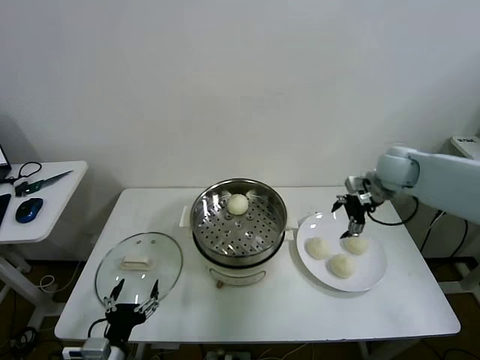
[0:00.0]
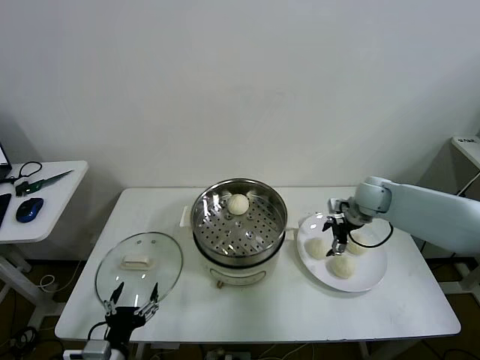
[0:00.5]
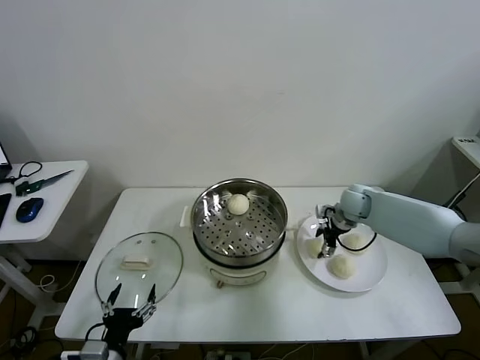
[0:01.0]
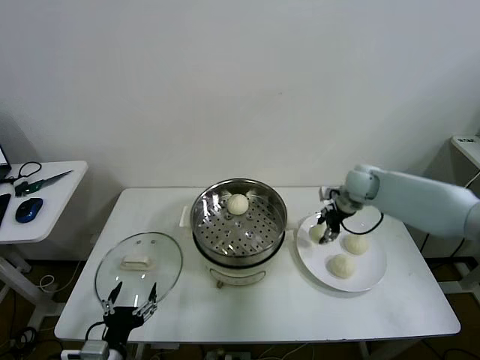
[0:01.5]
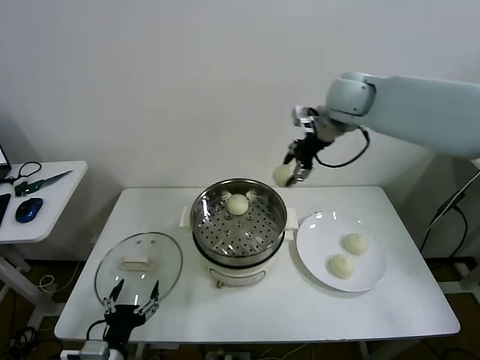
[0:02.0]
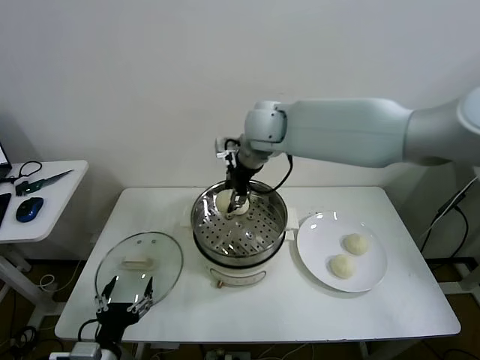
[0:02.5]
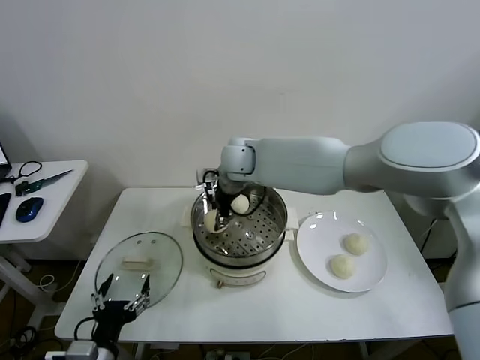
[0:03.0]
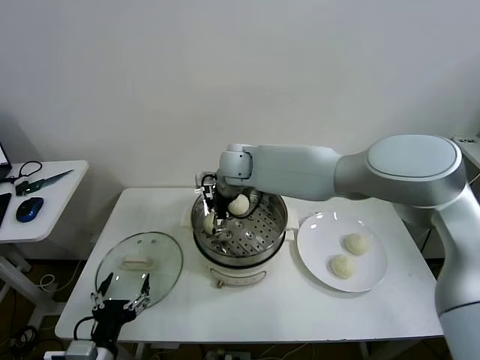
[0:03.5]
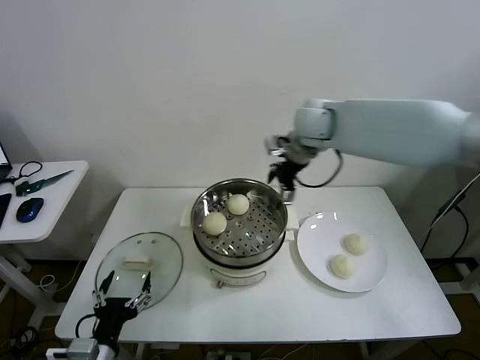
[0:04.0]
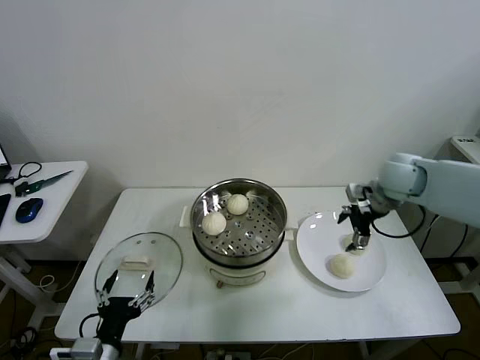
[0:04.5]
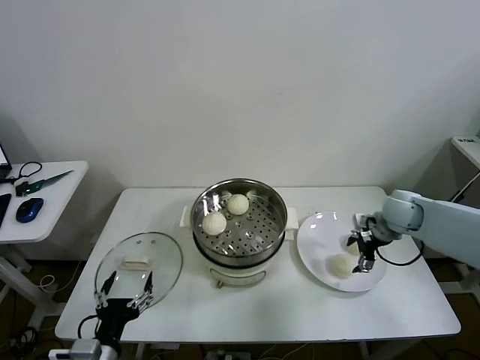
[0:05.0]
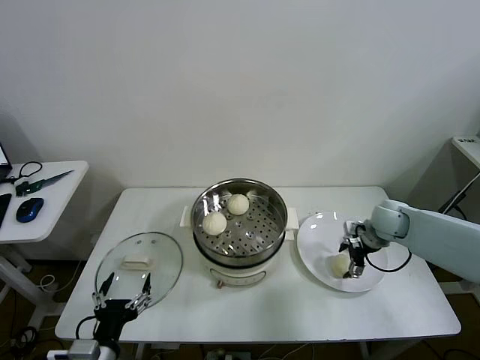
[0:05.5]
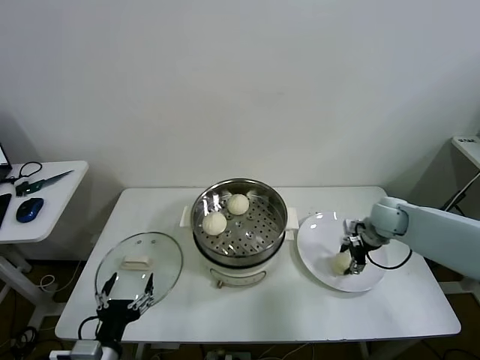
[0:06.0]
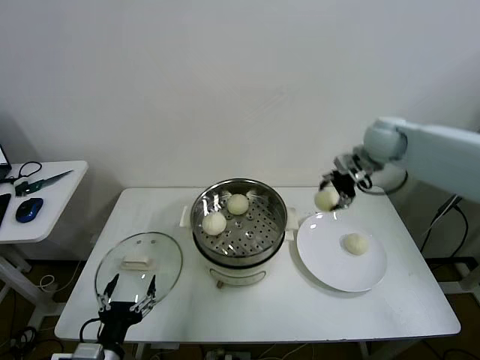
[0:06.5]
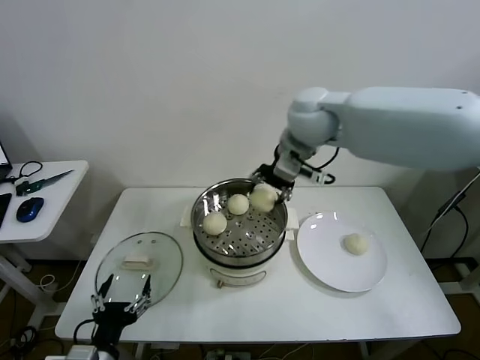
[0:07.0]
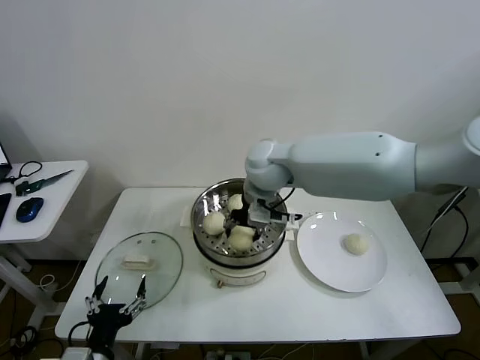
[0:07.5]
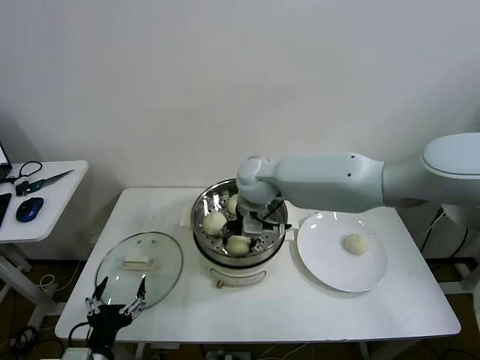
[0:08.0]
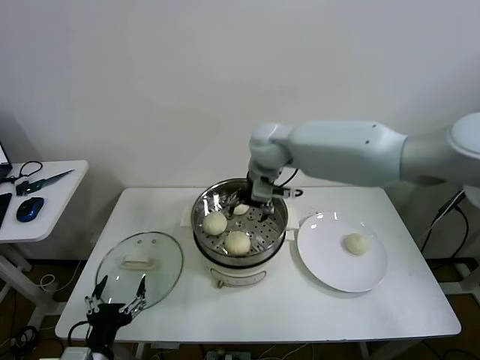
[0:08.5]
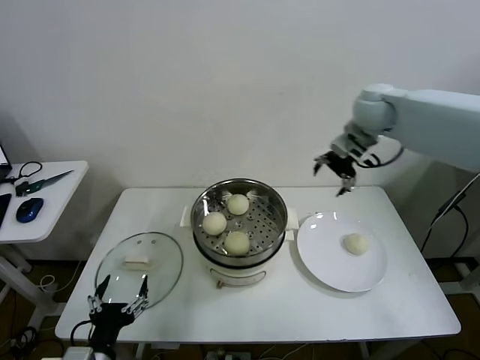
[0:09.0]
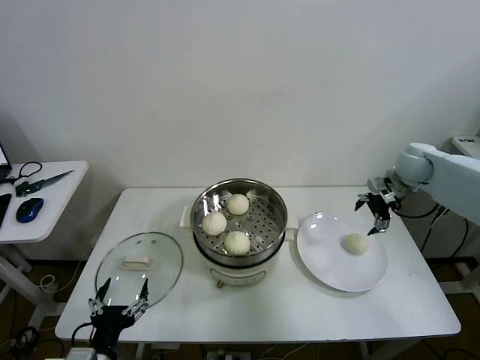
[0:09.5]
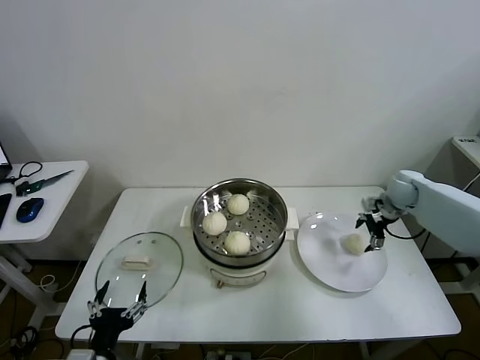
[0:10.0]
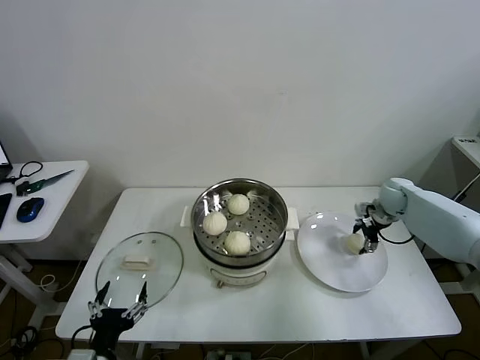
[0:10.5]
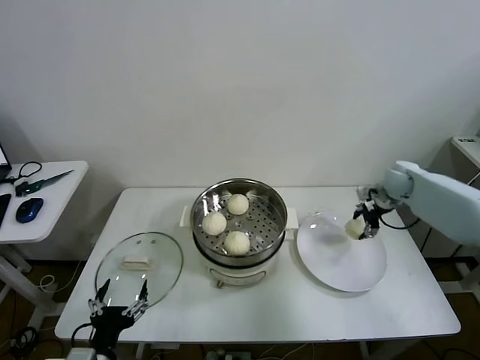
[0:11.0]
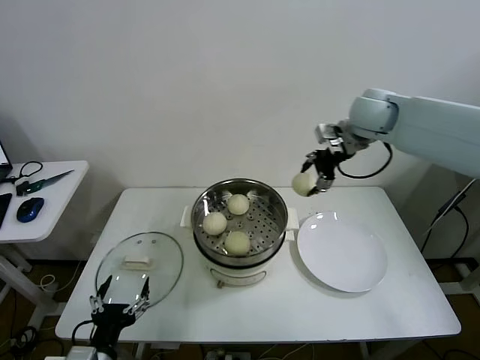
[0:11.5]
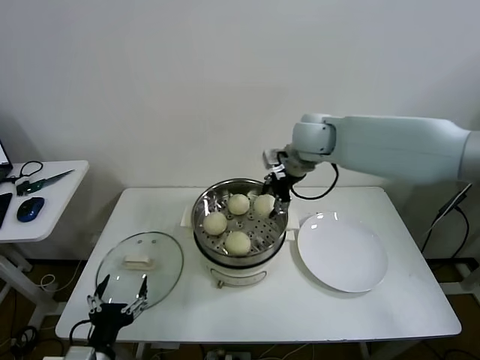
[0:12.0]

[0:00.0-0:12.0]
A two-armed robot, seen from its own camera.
Task of the whole recording: take steamed baozi put them in steamer then cover it.
Step, 0:01.5 to 0:03.0: Place the baozi on the steamer with right gripper.
Step, 0:03.5 to 0:05.5: Grasp the baozi in the plate with right gripper.
Step, 0:06.0 to 0:08.0: Place the baozi on the steamer with right gripper.
Step, 0:08.5 to 0:10.5: Grasp the baozi in the plate with right gripper.
0:00.0 to 0:02.0: The right gripper heads upward and to the left, covering some 25 cm, and closes.
0:02.0 to 0:04.0: The right gripper heads downward, covering roughly 5 cm, moves roughly 20 cm to the left and comes back, and opens up.
0:04.0 to 0:06.0: The right gripper goes about 30 cm downward and to the right, and closes its fingers.
0:06.0 to 0:08.0: The right gripper goes approximately 35 cm to the left.
0:08.0 to 0:10.0: The right gripper goes approximately 40 cm to the right, and opens.
0:10.0 to 0:12.0: The right gripper heads to the left and upward, covering about 35 cm, and closes up.

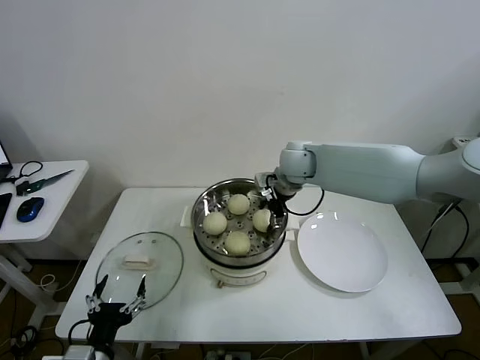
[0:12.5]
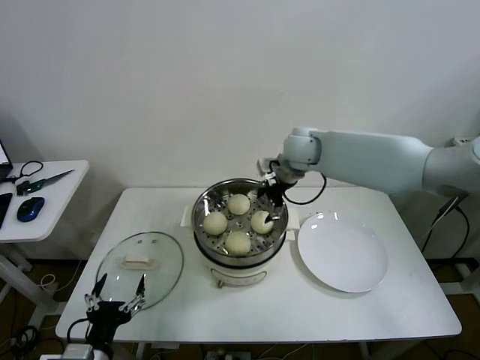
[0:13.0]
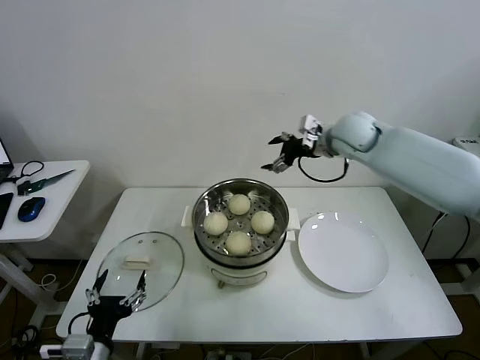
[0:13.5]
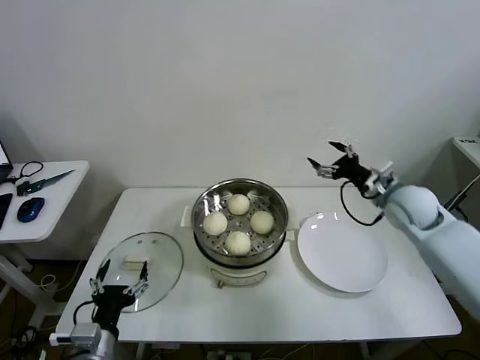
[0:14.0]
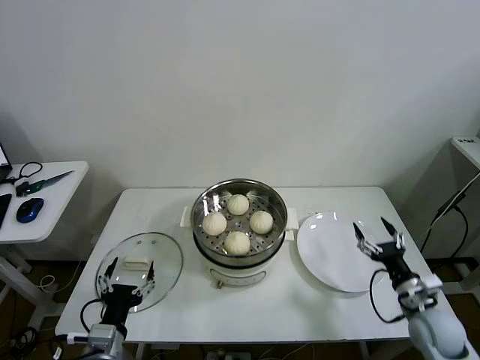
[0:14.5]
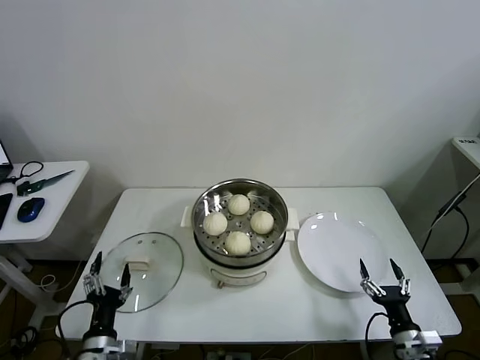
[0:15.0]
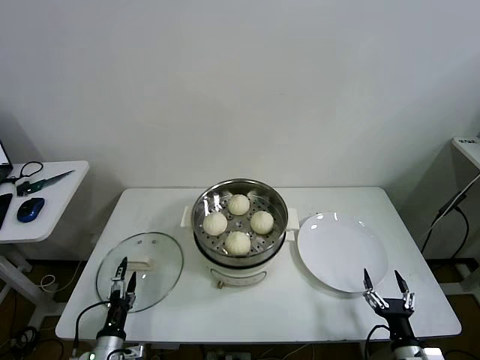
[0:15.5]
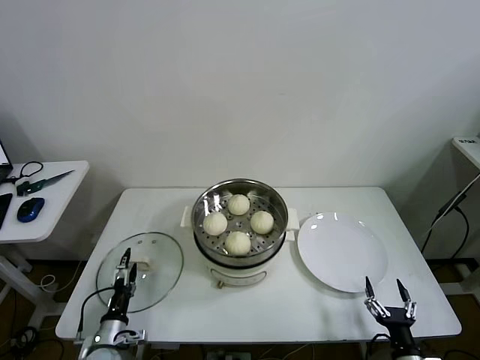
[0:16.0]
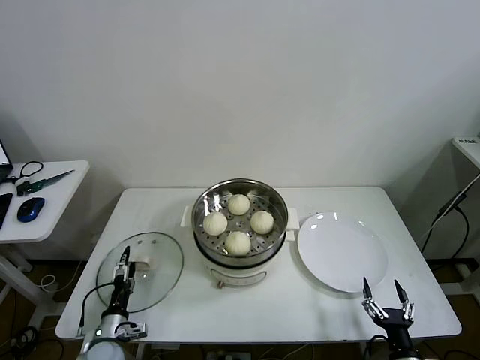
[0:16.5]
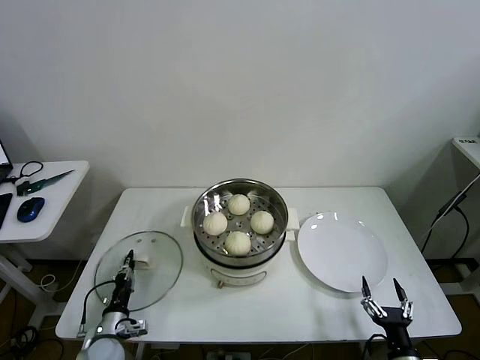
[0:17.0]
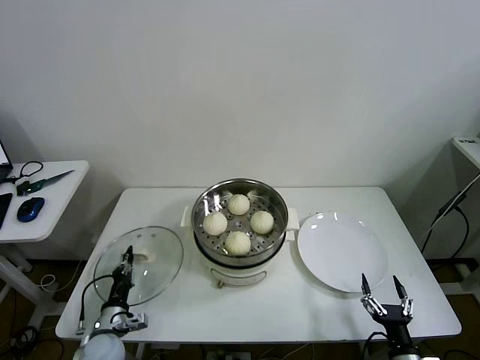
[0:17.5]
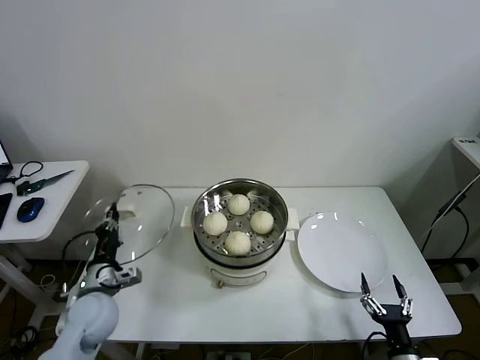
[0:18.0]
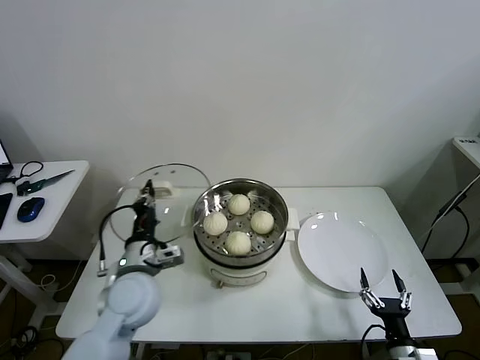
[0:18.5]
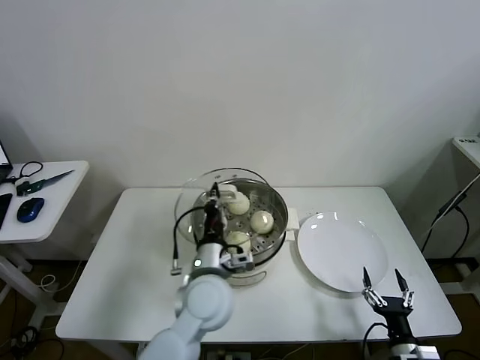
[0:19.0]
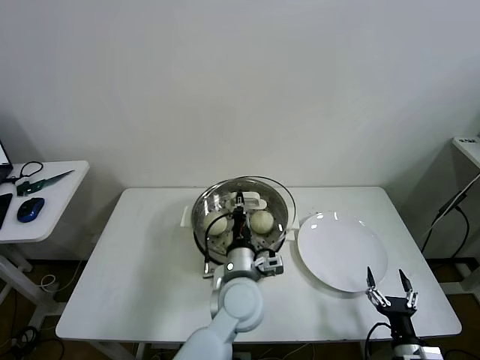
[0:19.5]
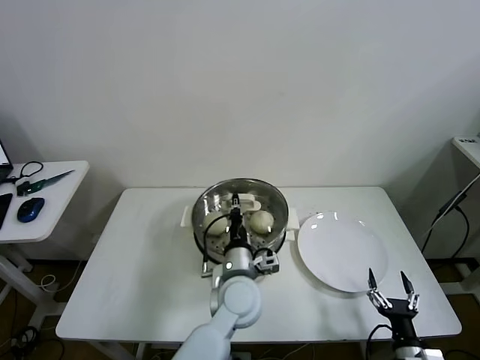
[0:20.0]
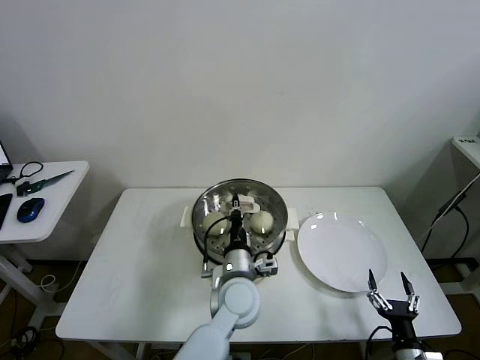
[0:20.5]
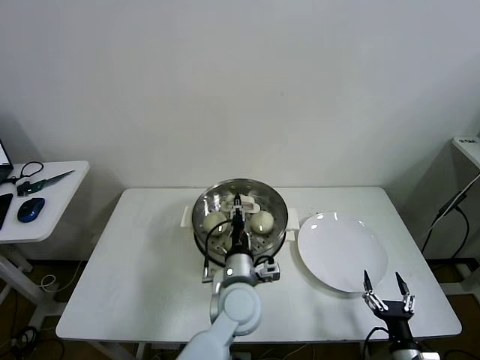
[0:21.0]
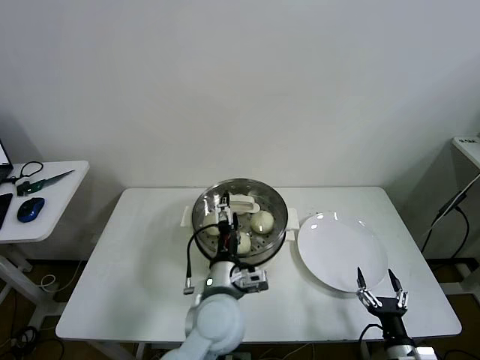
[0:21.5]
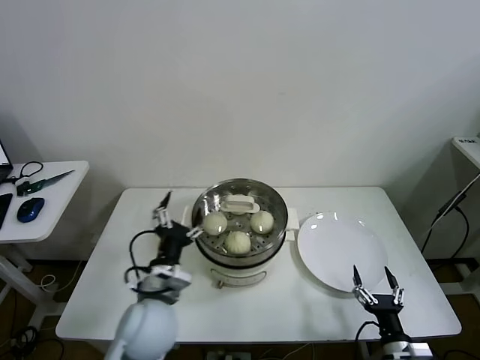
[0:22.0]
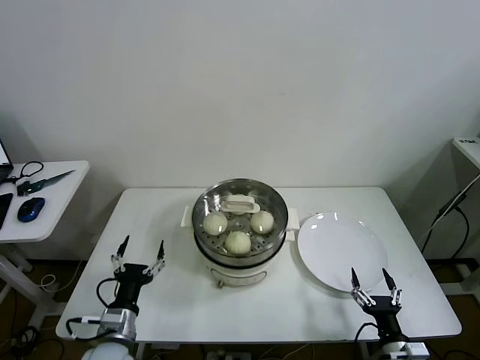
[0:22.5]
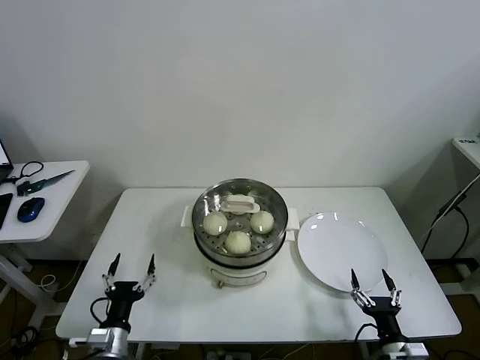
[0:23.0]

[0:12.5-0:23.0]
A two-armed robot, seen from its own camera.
Task of the whole recording: take steamed baozi put them in steamer then cover it.
Step, 0:13.0 to 0:17.0: Grasp the pot lid with left gripper.
Step, 0:17.5 to 0:21.0: Place the pot lid on the steamer with left gripper.
0:12.5 to 0:14.5: The right gripper shifts some 50 cm backward, to the right and downward, and opens up.
0:14.5 to 0:16.5: The left gripper is displaced downward, forward and to the left by approximately 20 cm. Meanwhile the right gripper goes about 15 cm backward and downward.
0:16.5 to 0:19.0: The left gripper travels to the right and upward by about 35 cm, and closes.
0:19.0 to 0:21.0: The left gripper moves to the right and downward, approximately 10 cm.
0:21.0 to 0:23.0: The left gripper heads to the left and backward, covering some 30 cm, and opens up.
